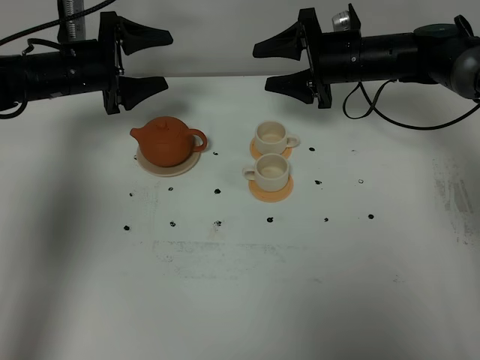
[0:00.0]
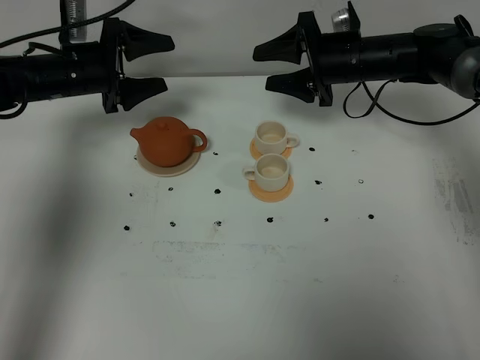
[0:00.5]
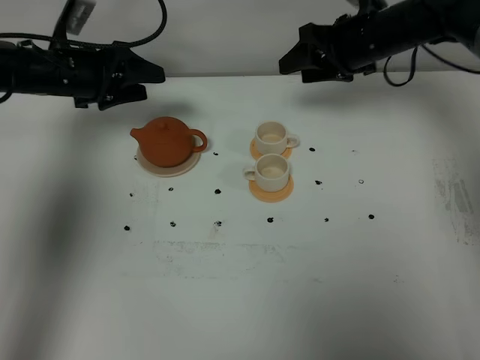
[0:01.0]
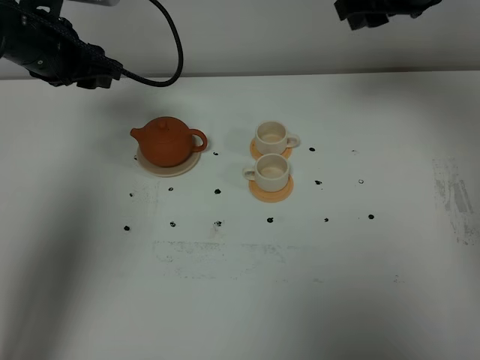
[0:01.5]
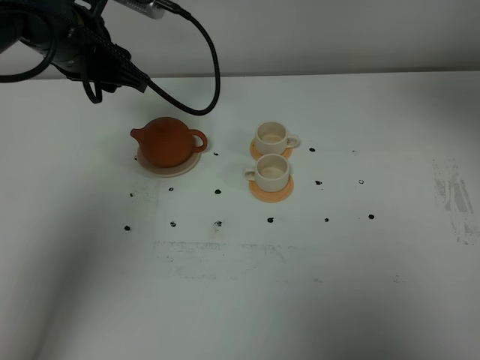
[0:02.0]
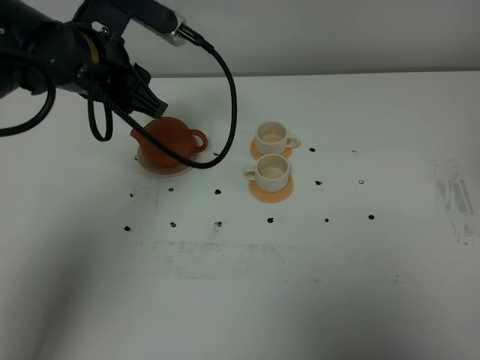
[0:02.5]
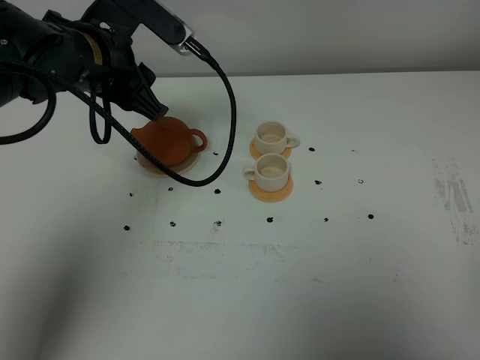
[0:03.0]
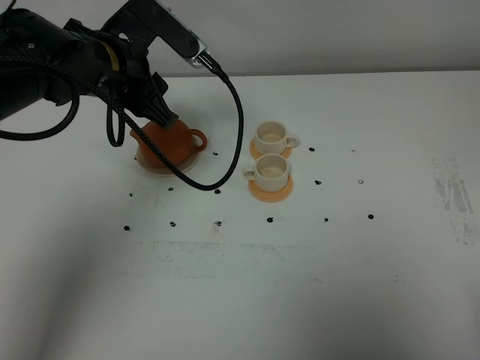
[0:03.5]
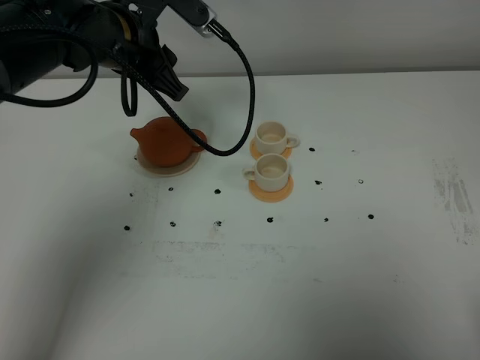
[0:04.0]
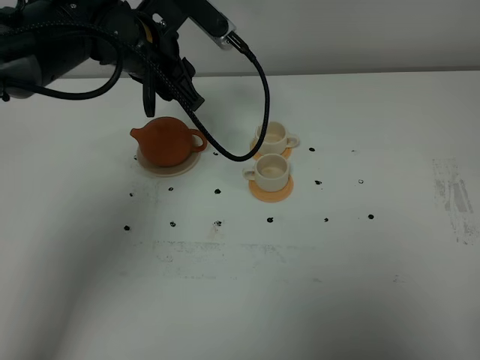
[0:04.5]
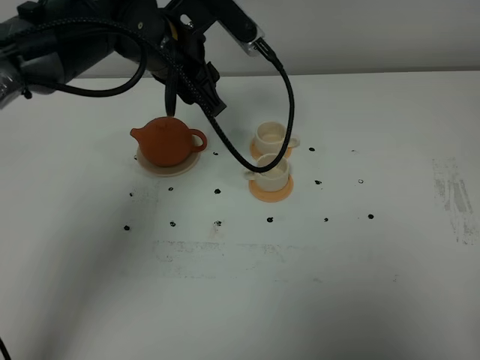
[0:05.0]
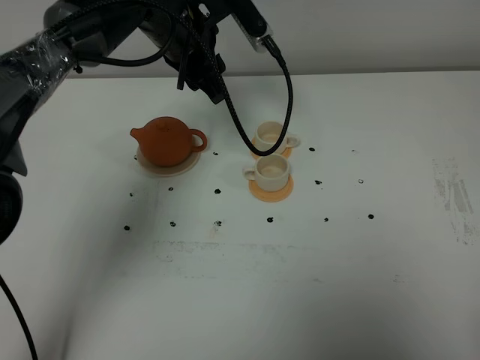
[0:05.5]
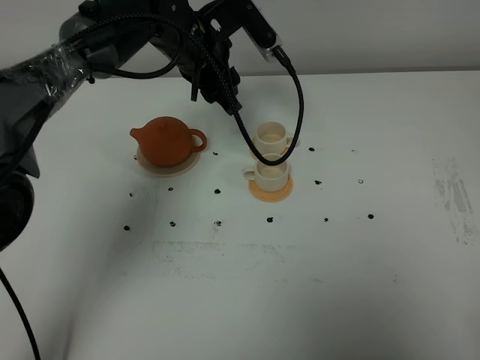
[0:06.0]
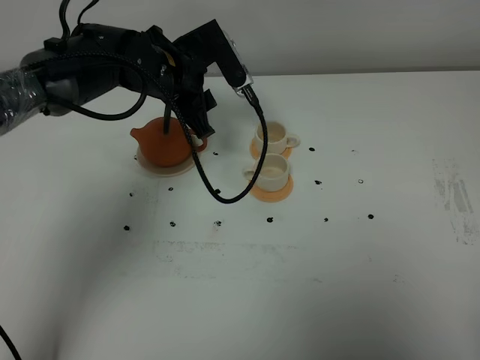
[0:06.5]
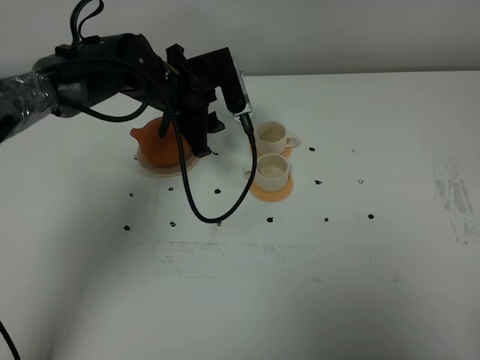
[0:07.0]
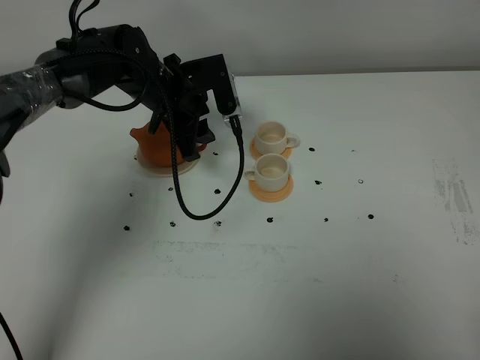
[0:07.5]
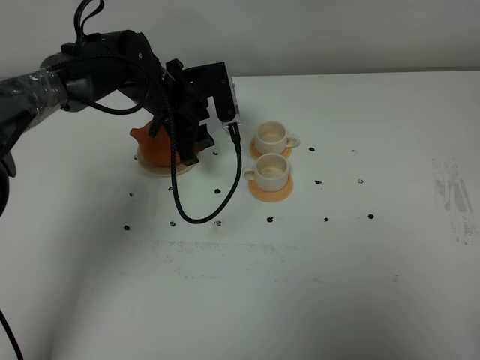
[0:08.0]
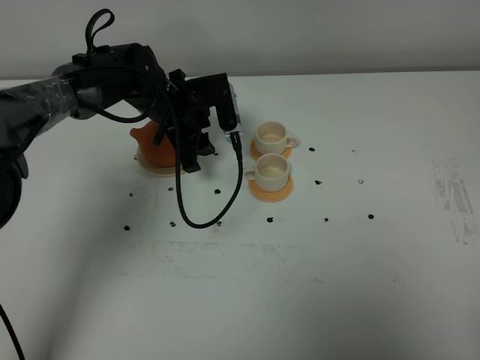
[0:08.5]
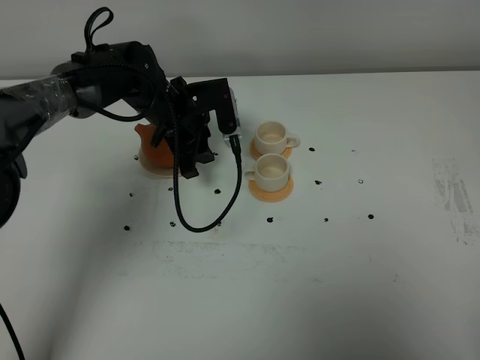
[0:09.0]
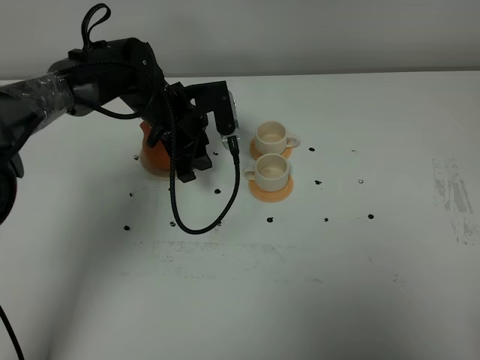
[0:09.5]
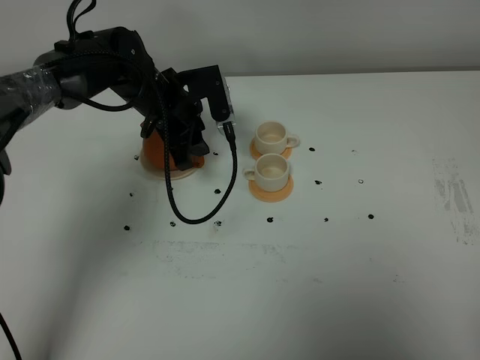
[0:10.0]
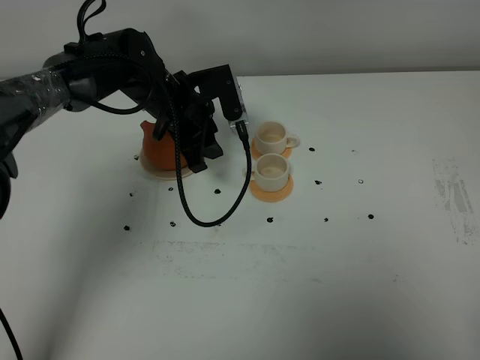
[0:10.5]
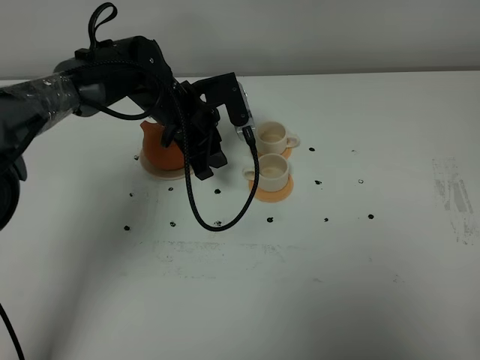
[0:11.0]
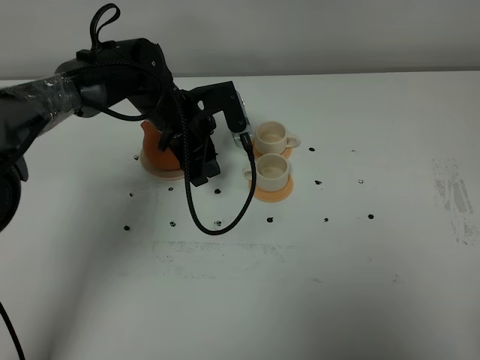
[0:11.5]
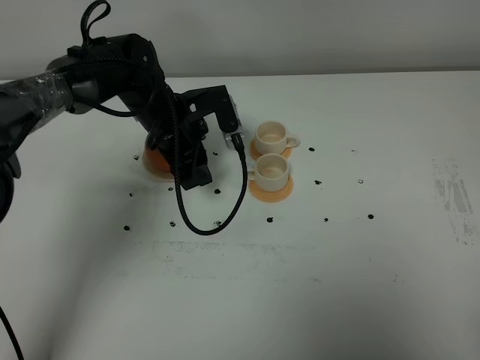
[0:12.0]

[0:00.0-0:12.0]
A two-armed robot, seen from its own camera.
Task of the whole recording: grasp the brown teapot and pour the tea into the two white teacups one by one, put the brown teapot back in its original place.
0:00.0 to 0:02.0: The right gripper shifts some 40 cm upward and backward; the left gripper goes some 15 cm upward, backward and to the right.
0:02.0 to 0:04.0: The right gripper travels backward and downward by about 35 cm.
0:04.0 to 0:06.0: The left gripper moves to the right, forward and downward, about 10 cm.
0:06.0 to 0:08.0: The left gripper travels downward by roughly 10 cm.
0:08.0 to 0:12.0: The grippers stay close to where they were, moving slightly.

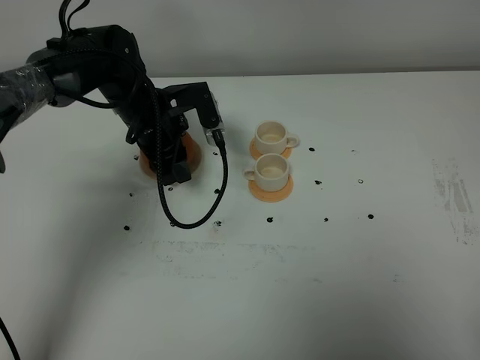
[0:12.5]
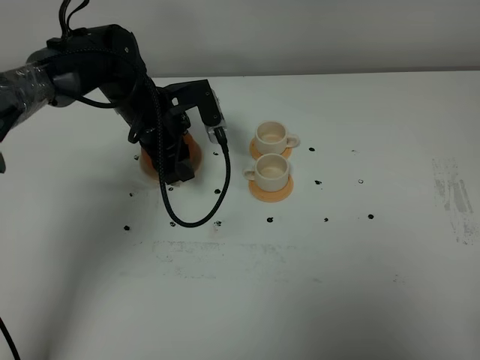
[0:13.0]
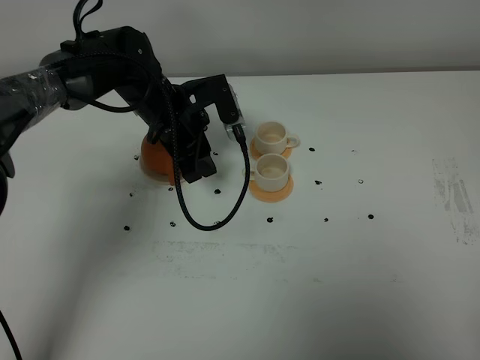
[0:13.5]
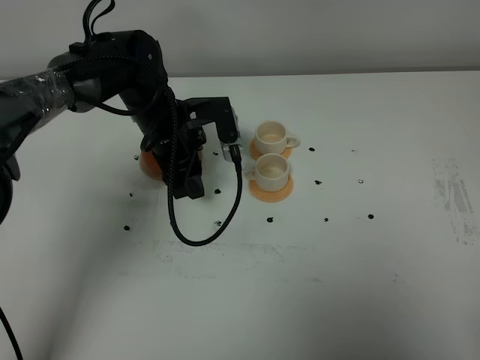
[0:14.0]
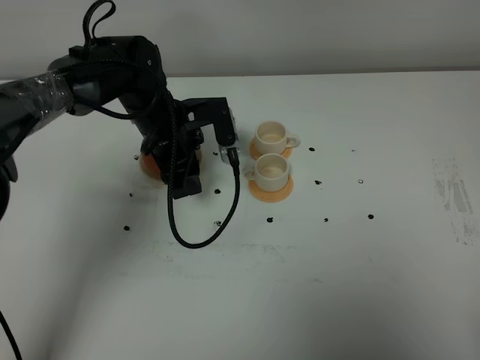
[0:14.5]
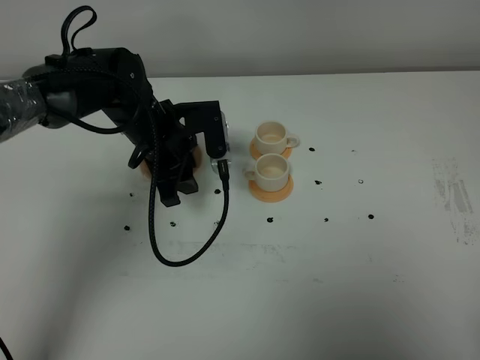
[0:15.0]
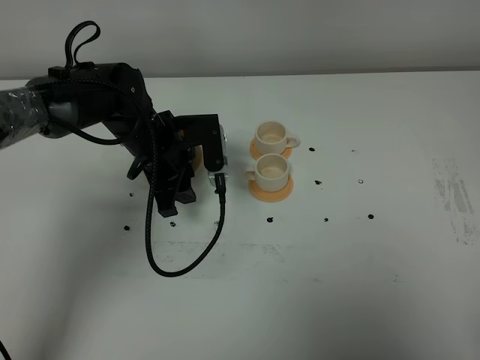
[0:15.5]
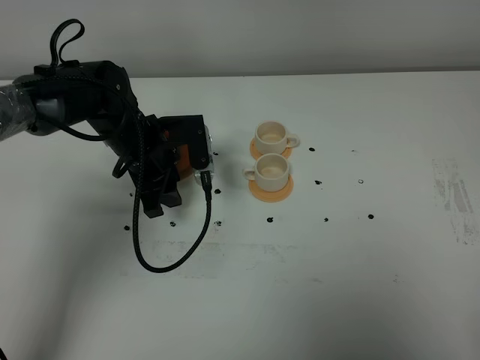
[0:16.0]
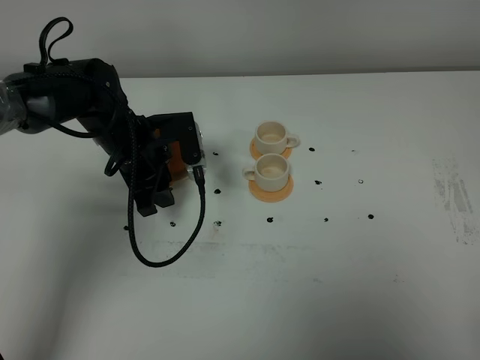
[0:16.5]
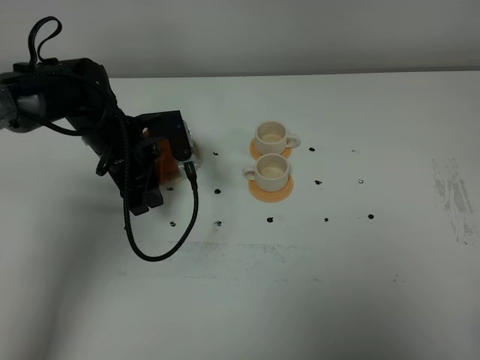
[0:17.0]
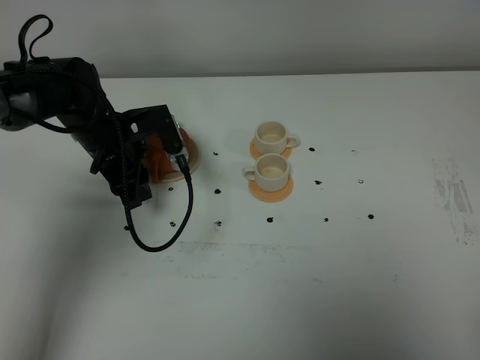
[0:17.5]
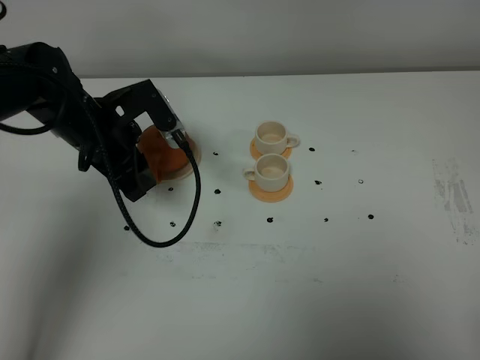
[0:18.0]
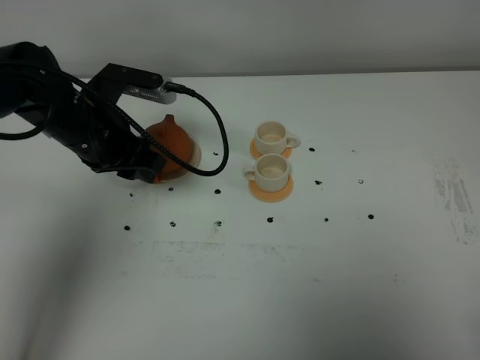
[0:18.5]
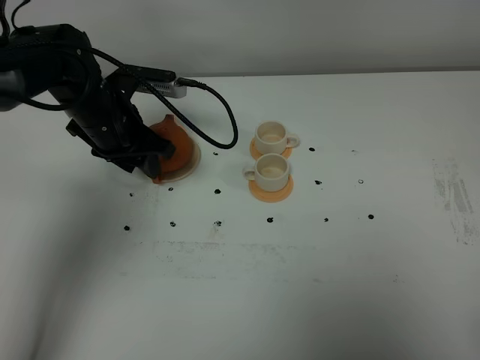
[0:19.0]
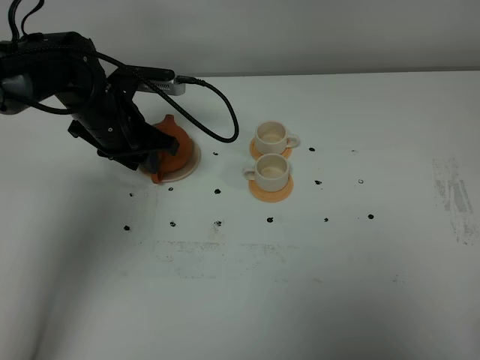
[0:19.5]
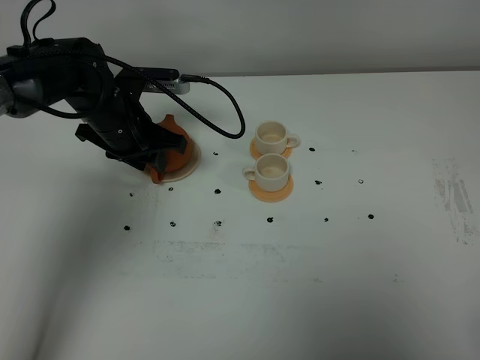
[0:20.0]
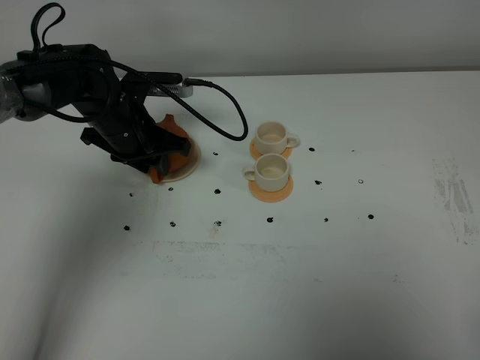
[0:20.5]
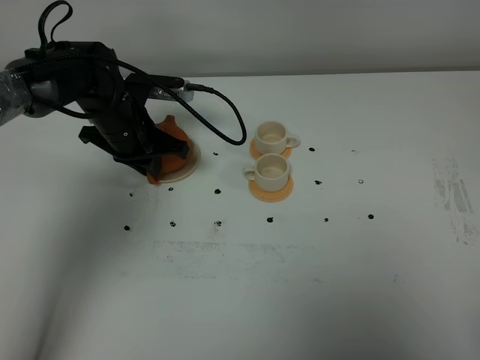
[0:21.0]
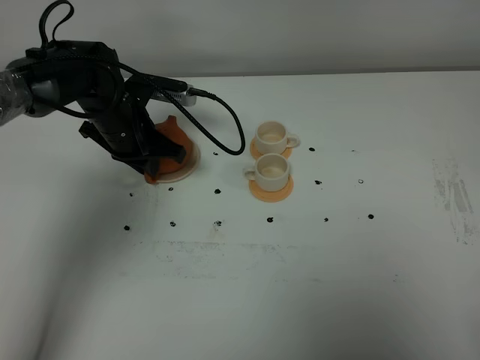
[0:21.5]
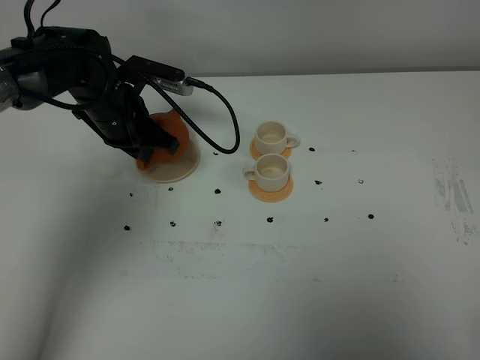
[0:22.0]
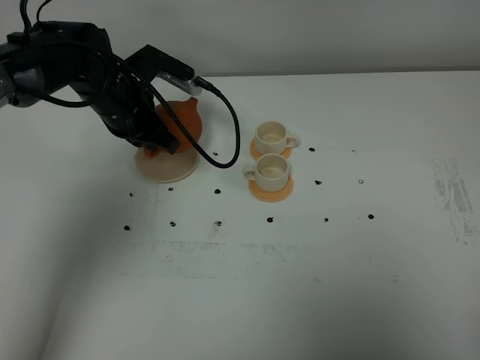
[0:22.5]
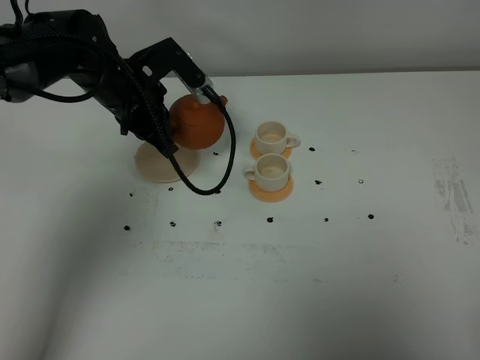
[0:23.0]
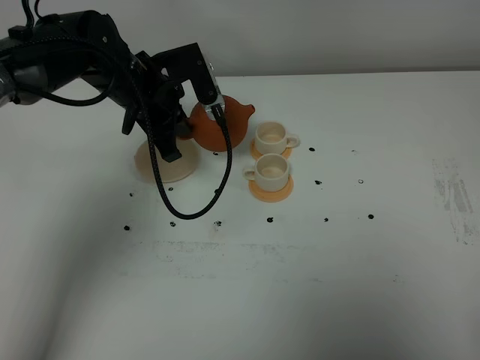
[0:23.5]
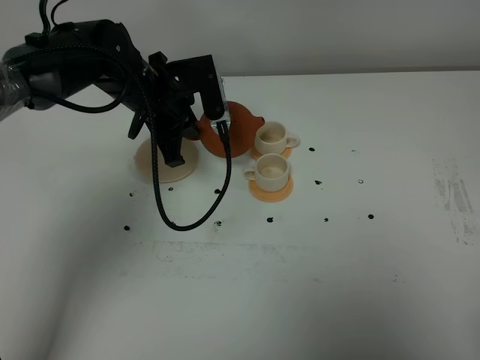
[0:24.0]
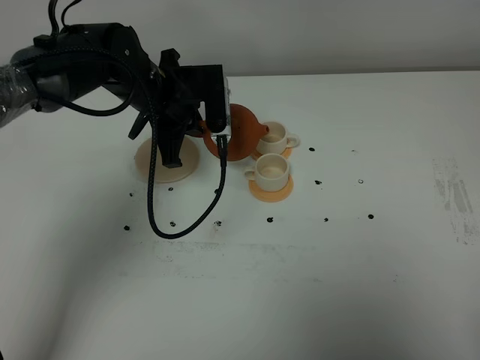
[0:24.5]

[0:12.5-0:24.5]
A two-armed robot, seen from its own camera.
Task of the whole recording: grasp the brown teapot and pour the tea into the two white teacups one by one, put the brown teapot back in its original place.
Step, 0:12.5 to 0:22.0: Pick up the teapot with the left gripper.
0:12.5 to 0:14.5: There are only small adjustments of the grippers.
0:14.5 to 0:16.5: The left gripper shifts by roughly 5 cm.
0:16.5 to 0:18.5: The left gripper heads upward, covering about 5 cm.
0:18.5 to 0:20.5: The left gripper moves forward and downward, roughly 10 cm.
0:20.5 to 0:22.5: The left gripper closes.

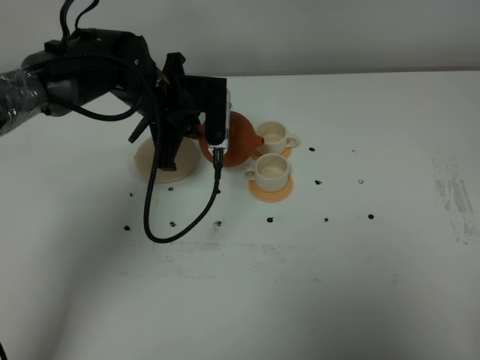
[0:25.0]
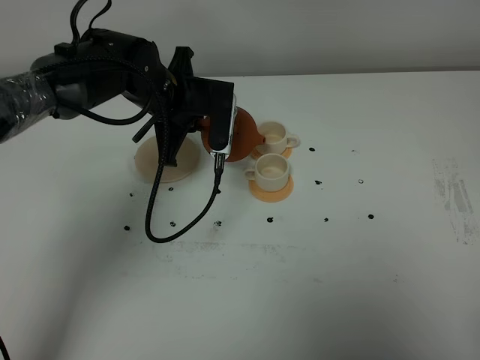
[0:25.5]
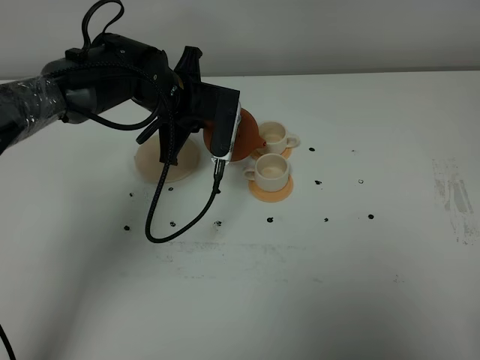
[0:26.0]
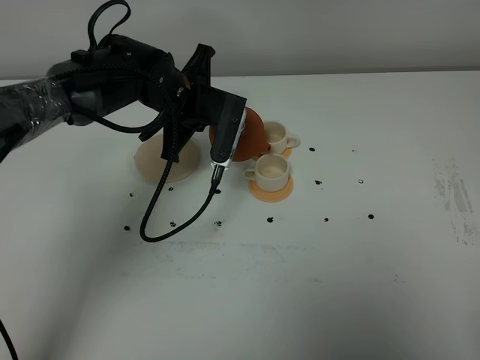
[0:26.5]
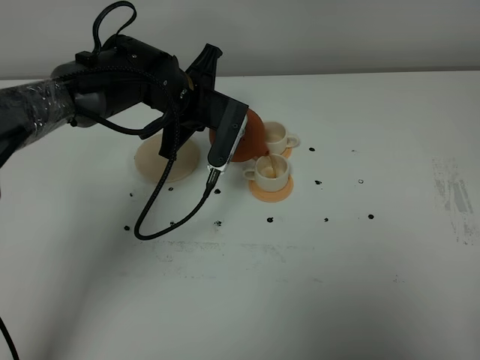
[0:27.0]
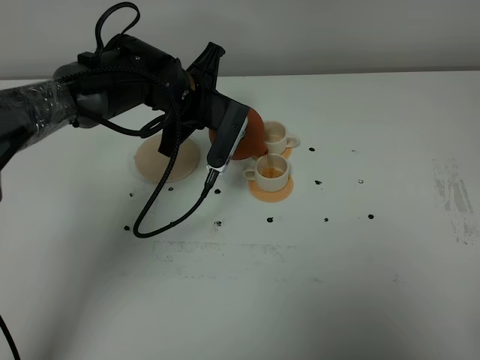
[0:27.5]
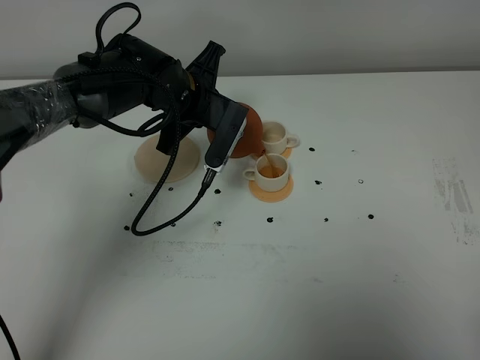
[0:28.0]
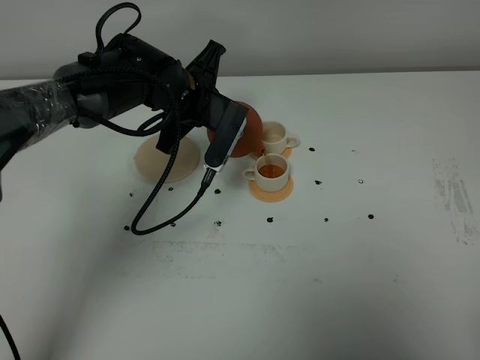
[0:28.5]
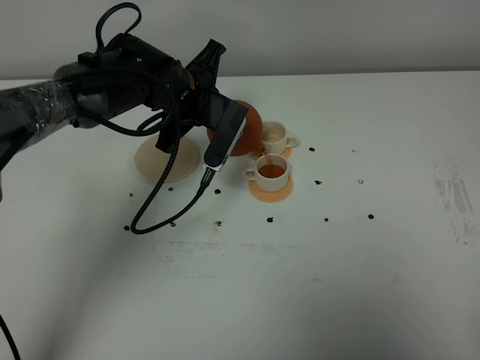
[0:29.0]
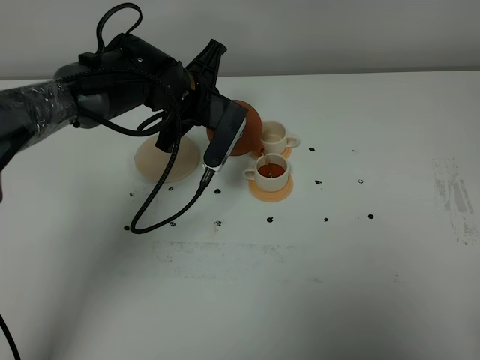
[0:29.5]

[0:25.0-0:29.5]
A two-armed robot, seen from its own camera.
Task of the whole recording: grasp the brown teapot and pour the tea into the two white teacups one by one, put the brown teapot back in its original place.
0:27.0 to 0:29.5: The grippers move only a little.
